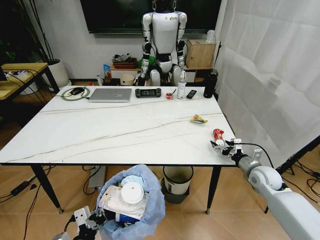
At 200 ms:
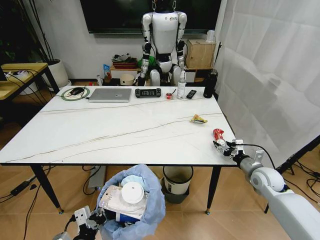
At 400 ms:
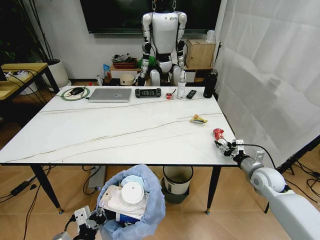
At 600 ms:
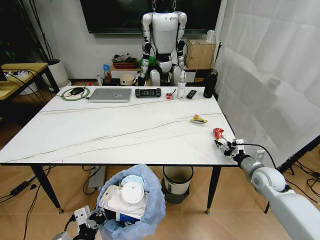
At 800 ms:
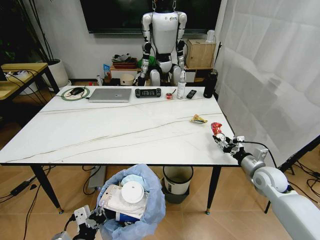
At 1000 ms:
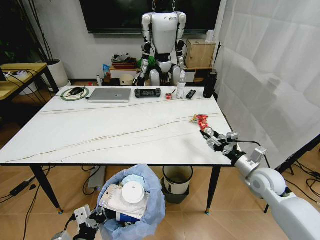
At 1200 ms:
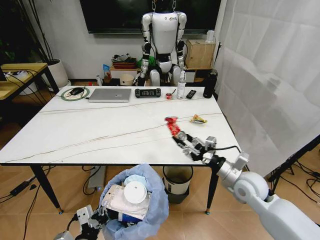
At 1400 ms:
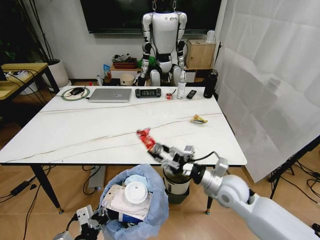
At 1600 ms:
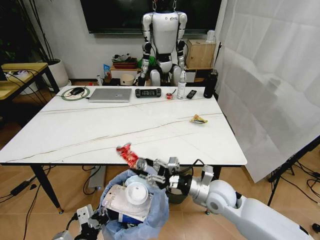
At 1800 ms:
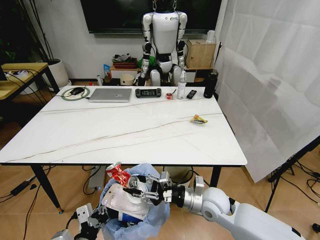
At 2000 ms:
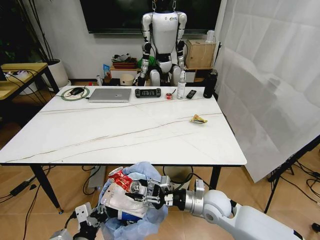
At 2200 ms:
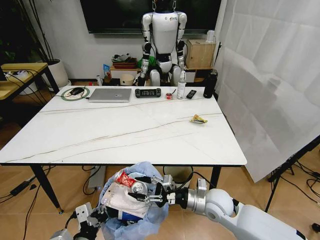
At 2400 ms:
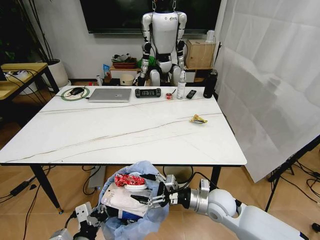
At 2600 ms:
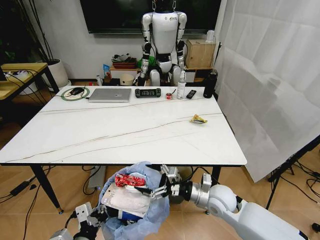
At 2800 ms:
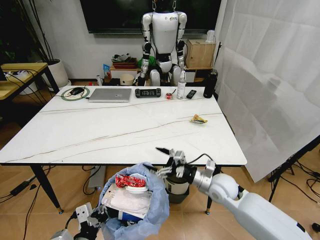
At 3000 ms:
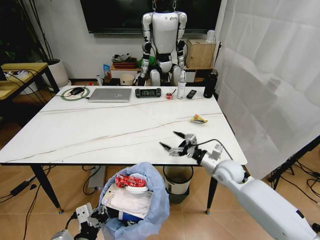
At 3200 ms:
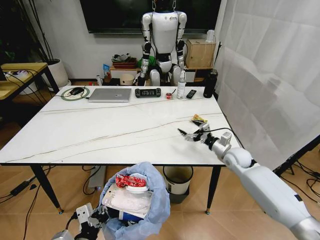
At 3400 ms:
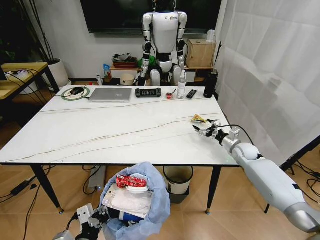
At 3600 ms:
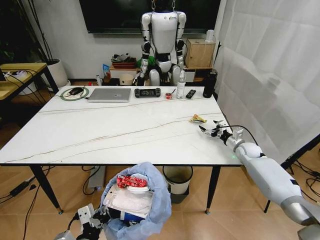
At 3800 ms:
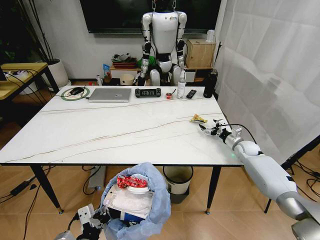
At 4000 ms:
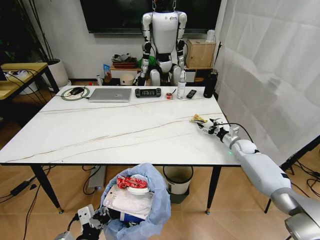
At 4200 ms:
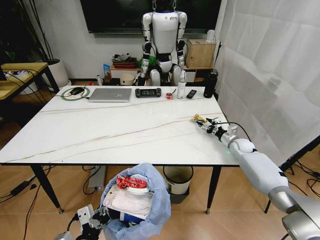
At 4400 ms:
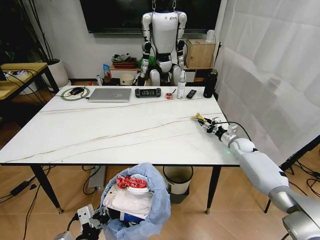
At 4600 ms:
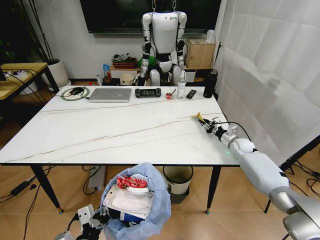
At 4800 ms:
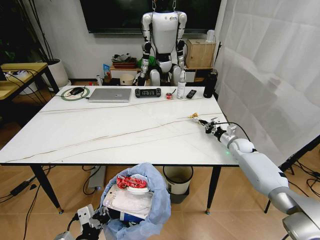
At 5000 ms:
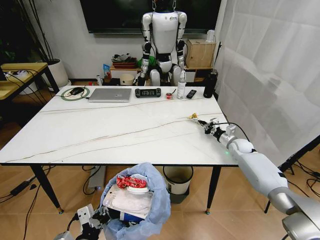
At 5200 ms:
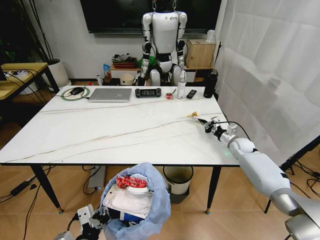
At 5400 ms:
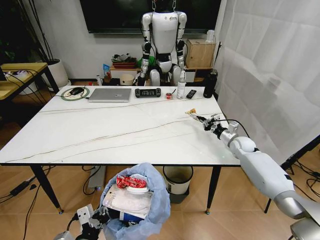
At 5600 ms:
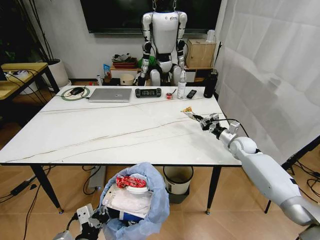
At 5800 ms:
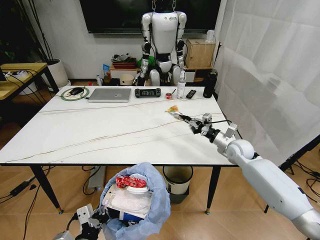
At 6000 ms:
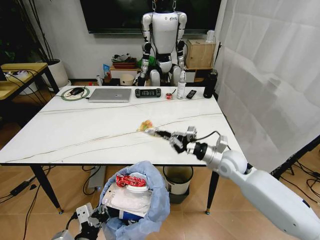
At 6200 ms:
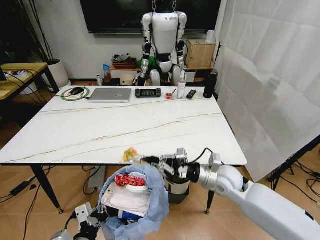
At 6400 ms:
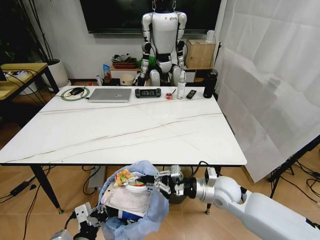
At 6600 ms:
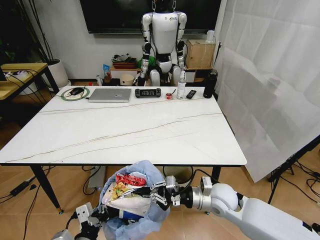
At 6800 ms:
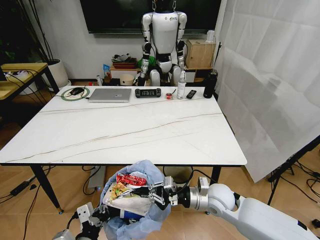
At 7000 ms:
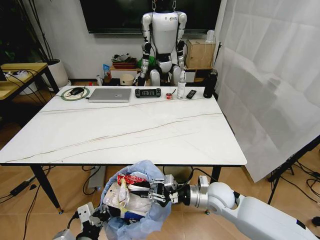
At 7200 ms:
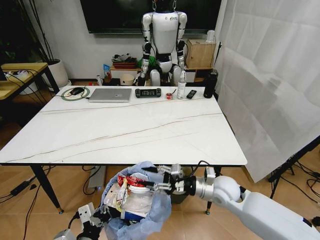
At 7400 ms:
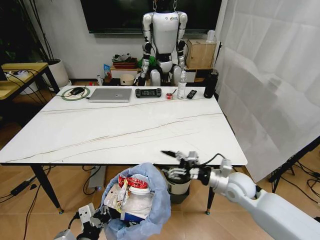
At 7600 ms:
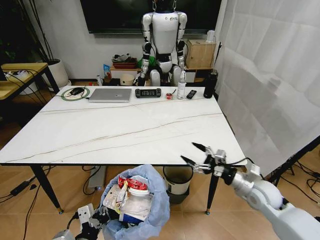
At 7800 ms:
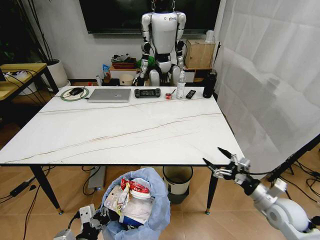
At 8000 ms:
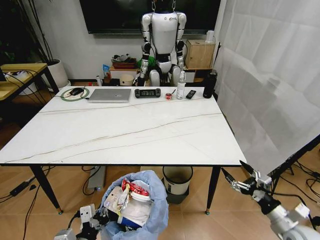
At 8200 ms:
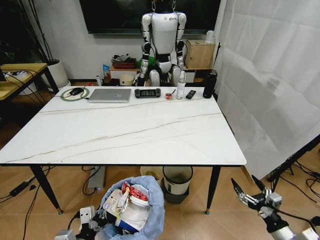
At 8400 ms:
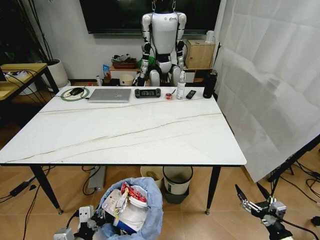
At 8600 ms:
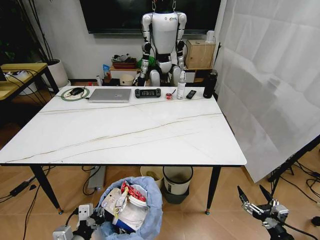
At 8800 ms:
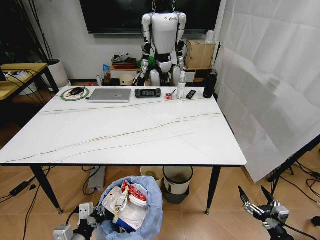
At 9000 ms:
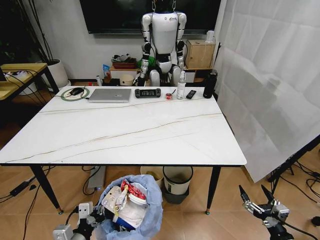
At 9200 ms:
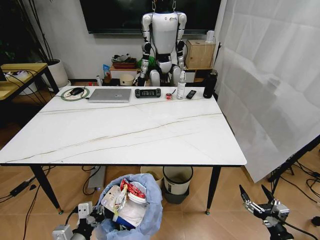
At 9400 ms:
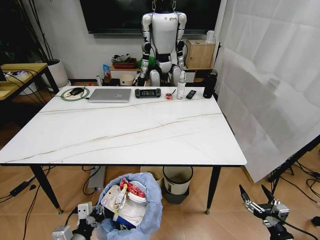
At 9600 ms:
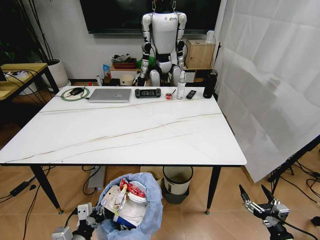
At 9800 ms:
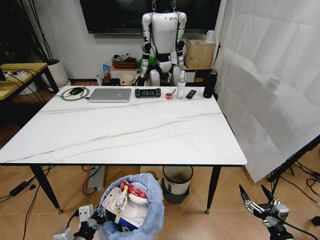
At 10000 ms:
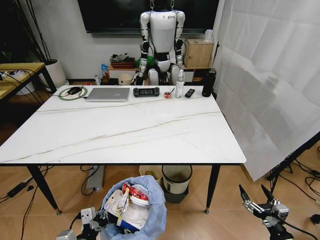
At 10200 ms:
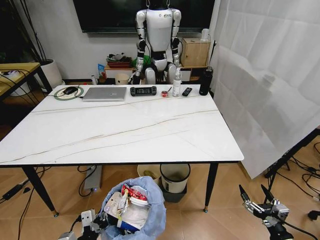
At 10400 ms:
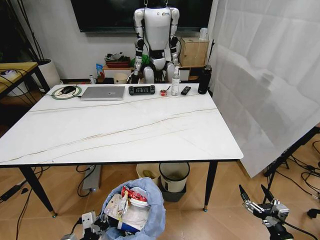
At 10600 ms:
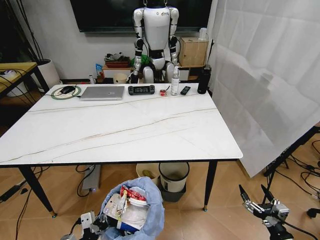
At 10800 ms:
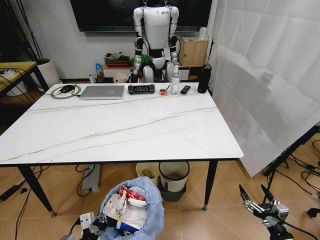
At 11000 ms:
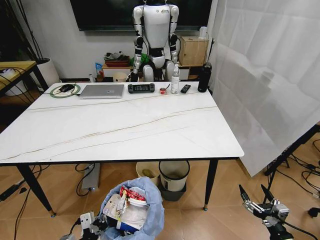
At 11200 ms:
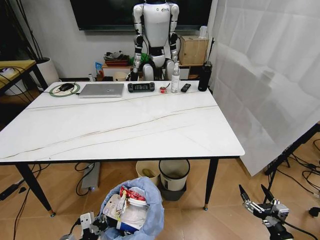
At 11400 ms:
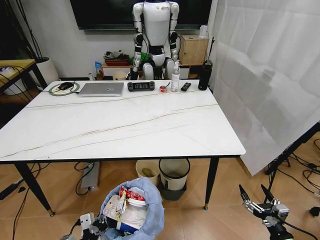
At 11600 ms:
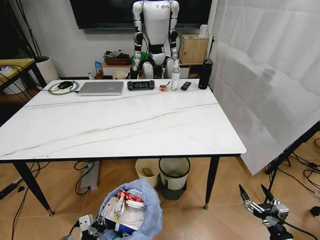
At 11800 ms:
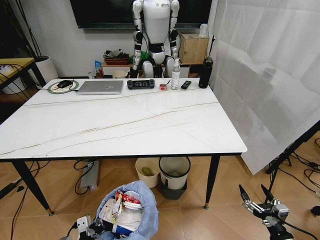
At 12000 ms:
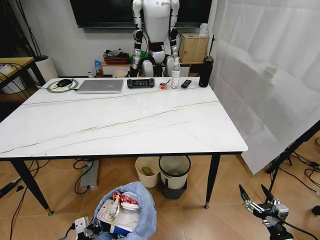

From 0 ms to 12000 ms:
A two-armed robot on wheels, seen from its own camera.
Task of the whole recording: Pick up the trash bin and place the trash from the table into it.
From 0 ms to 1600 ms: The right gripper heads to the left, covering approximately 20 cm, and closes.
From 1600 ms to 3000 ms: The right gripper heads forward and to the right, covering roughly 10 cm, and opens.
From 3000 ms to 4400 ms: The right gripper moves forward and to the right, about 20 cm, and closes its fingers.
From 4400 ms to 6000 ms: The right gripper is displaced backward, to the left and upward by some 20 cm, and closes.
From 6000 ms to 7600 ms: The right gripper is displaced to the right, backward and downward by some 15 cm, and opens its fingers.
From 7600 ms to 9000 ms: The left gripper shifts by approximately 5 cm, while the right gripper heads backward and downward, covering about 25 cm.

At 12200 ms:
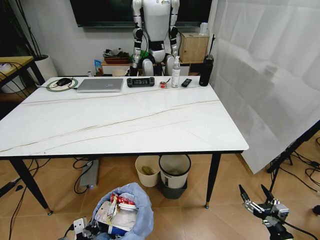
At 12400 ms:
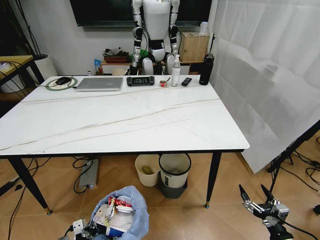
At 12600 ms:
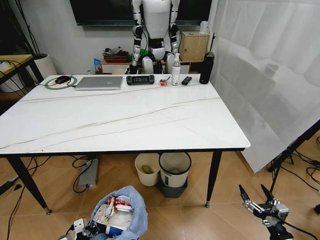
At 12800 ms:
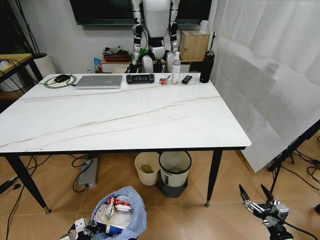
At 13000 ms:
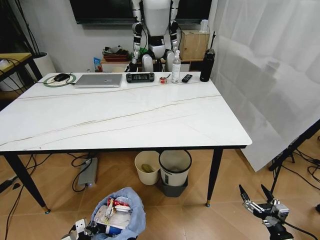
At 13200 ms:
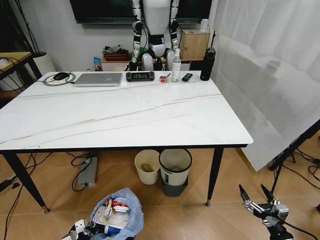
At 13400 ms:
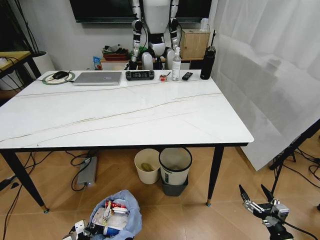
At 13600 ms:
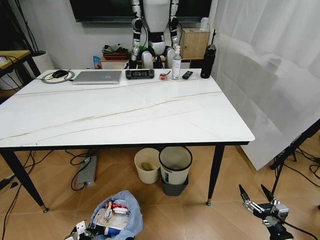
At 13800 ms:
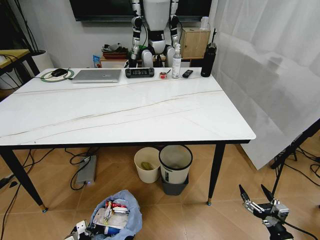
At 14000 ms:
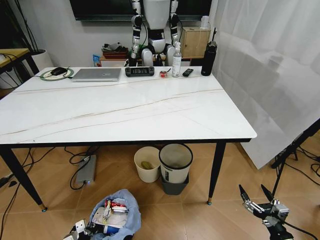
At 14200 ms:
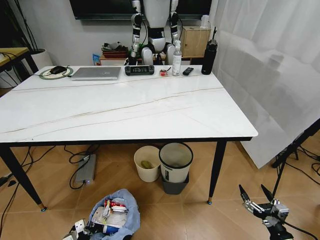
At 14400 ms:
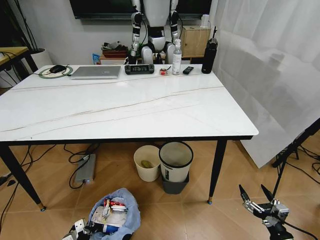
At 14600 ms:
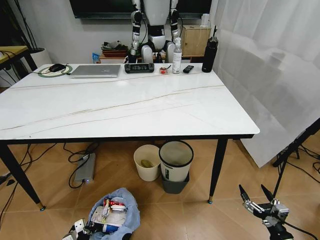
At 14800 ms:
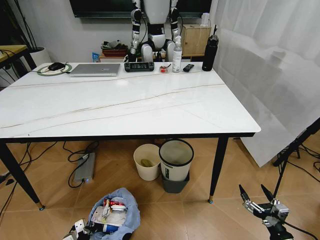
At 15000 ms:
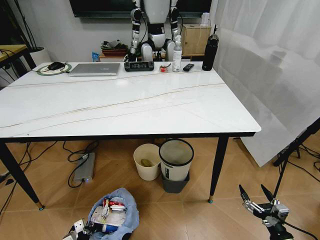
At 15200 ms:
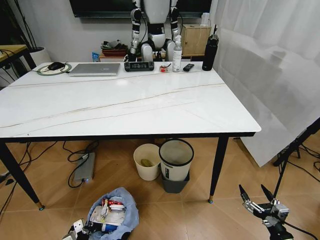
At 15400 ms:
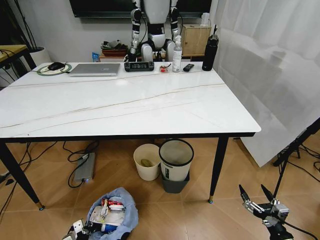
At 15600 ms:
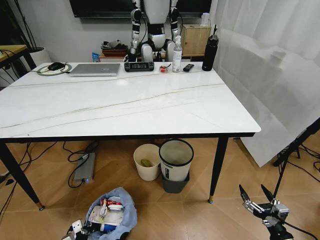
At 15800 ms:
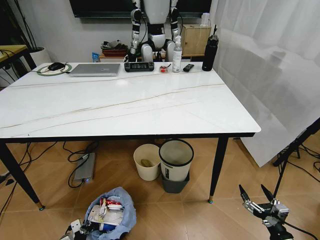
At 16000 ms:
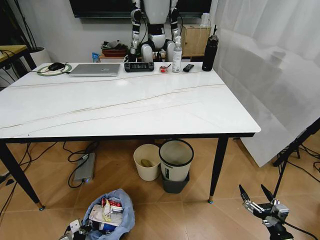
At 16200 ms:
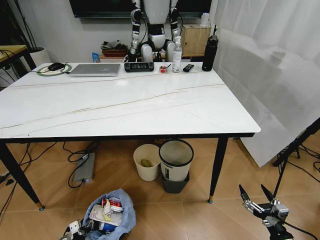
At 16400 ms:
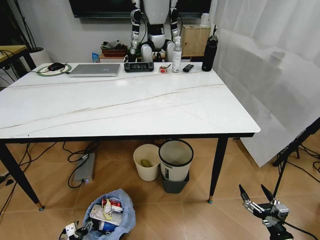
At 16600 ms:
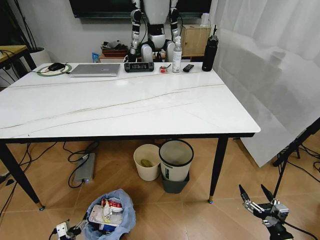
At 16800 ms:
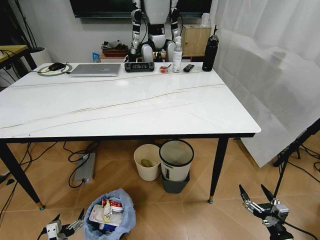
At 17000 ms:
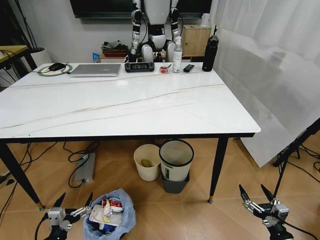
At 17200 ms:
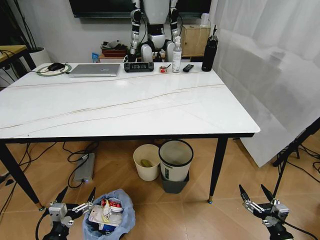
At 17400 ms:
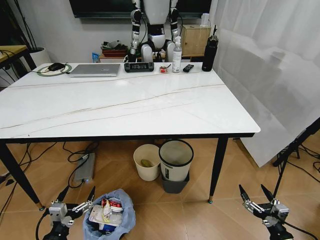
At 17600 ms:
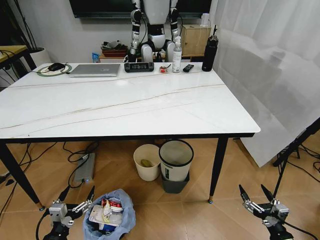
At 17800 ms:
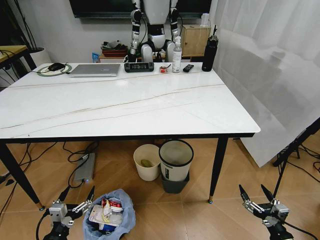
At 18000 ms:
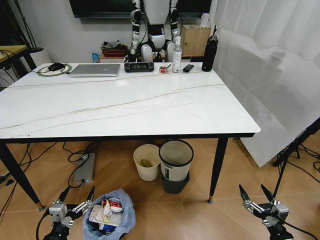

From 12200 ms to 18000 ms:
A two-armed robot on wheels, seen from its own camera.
Task of the whole recording: Pick up the trash bin and place the trash from the table into it.
From 12200 ms to 13600 ms: The left gripper goes some 15 cm downward.
From 15000 ms to 16600 ms: The left gripper changes place by approximately 5 cm, and opens its fingers.
From 16600 ms to 18000 ms: The left gripper shifts approximately 15 cm upward.
